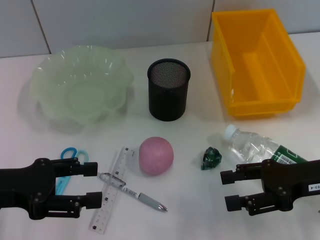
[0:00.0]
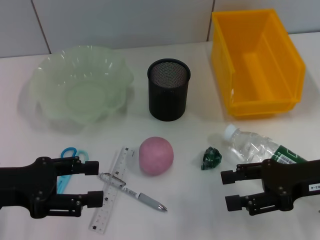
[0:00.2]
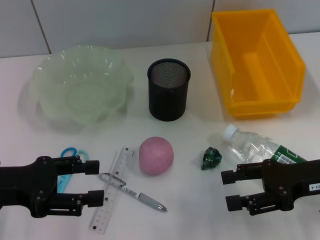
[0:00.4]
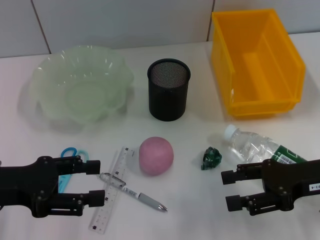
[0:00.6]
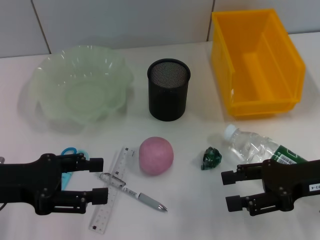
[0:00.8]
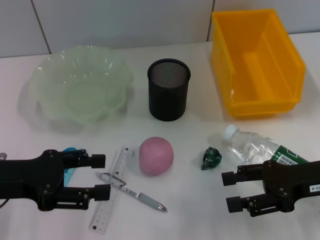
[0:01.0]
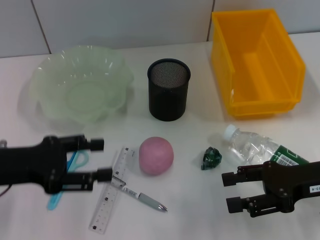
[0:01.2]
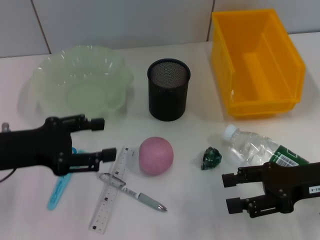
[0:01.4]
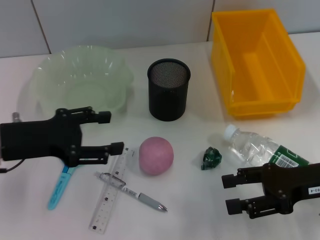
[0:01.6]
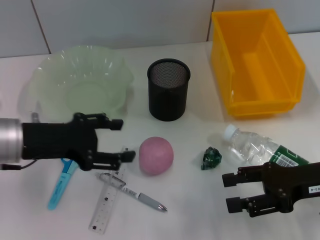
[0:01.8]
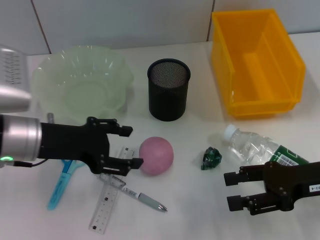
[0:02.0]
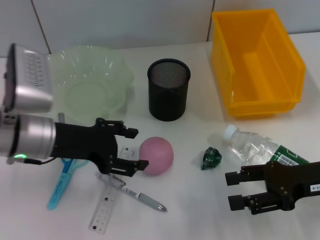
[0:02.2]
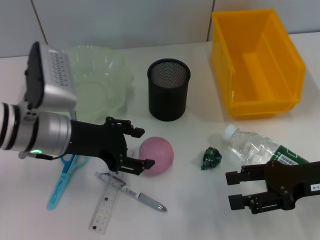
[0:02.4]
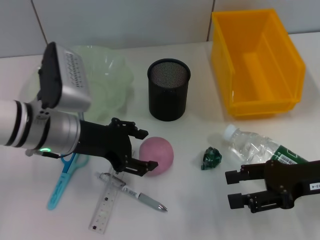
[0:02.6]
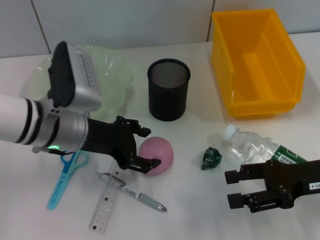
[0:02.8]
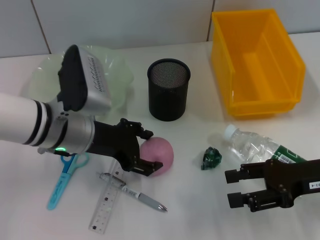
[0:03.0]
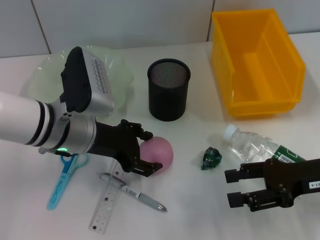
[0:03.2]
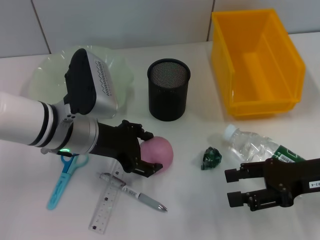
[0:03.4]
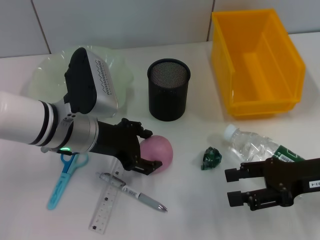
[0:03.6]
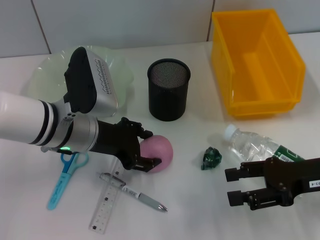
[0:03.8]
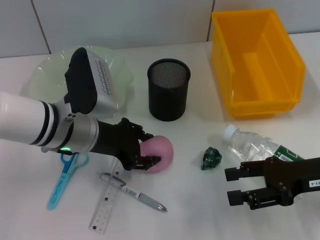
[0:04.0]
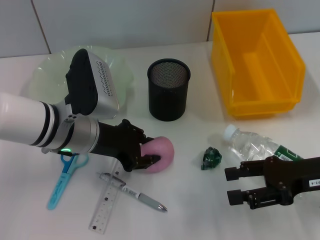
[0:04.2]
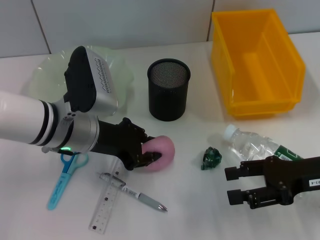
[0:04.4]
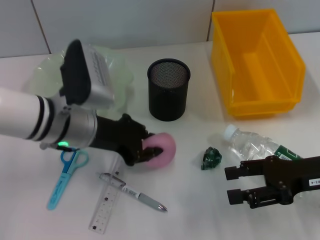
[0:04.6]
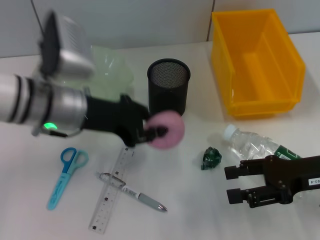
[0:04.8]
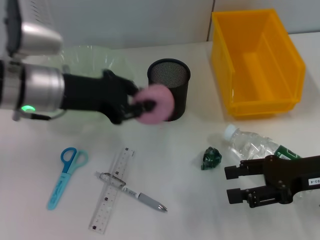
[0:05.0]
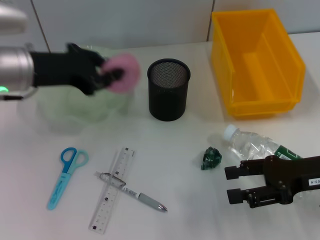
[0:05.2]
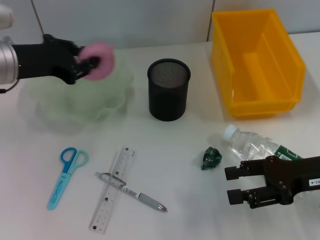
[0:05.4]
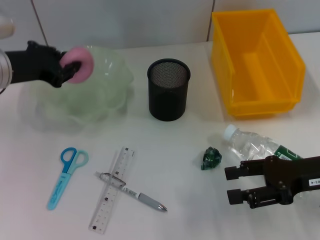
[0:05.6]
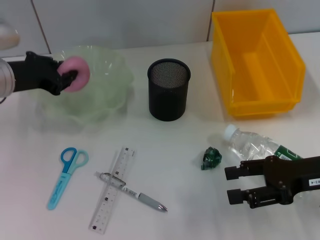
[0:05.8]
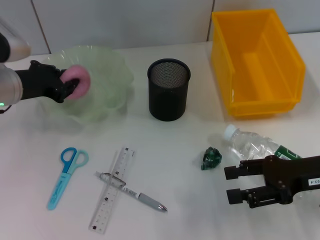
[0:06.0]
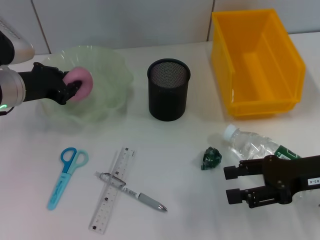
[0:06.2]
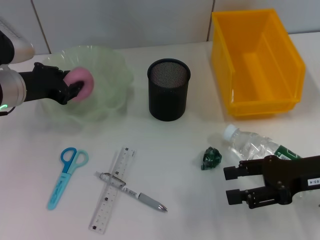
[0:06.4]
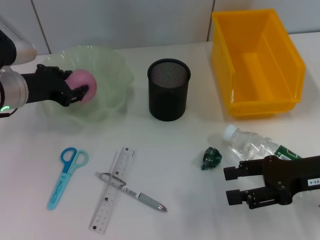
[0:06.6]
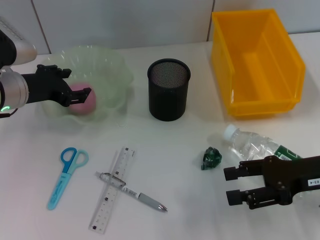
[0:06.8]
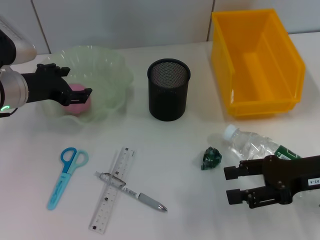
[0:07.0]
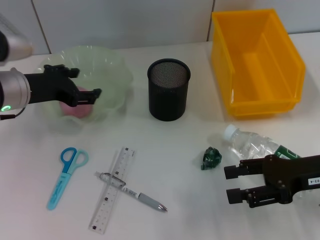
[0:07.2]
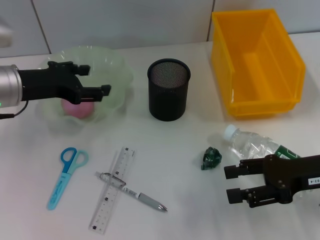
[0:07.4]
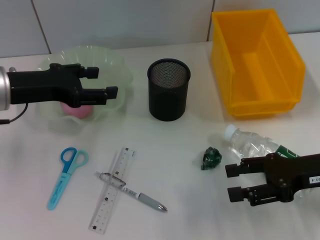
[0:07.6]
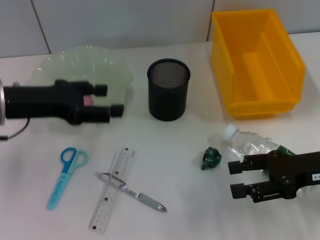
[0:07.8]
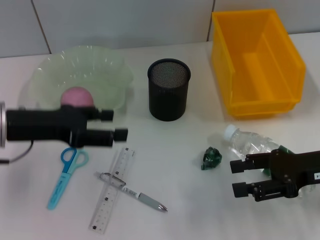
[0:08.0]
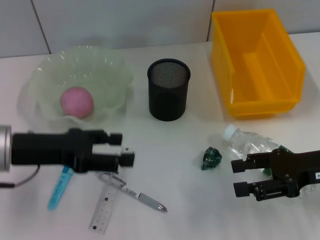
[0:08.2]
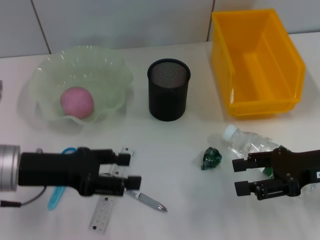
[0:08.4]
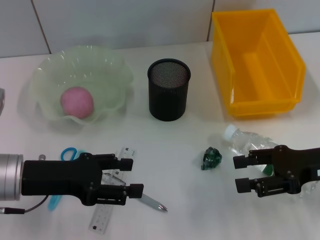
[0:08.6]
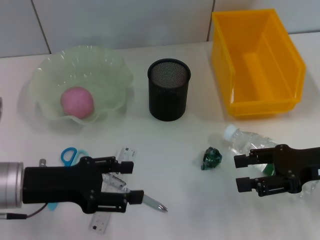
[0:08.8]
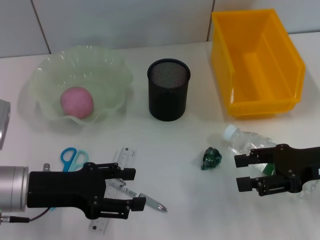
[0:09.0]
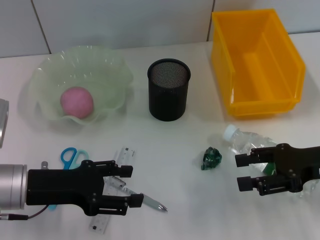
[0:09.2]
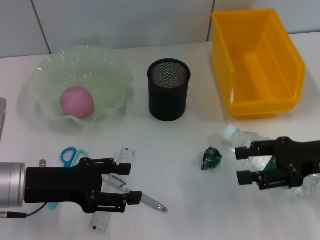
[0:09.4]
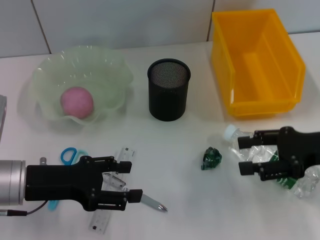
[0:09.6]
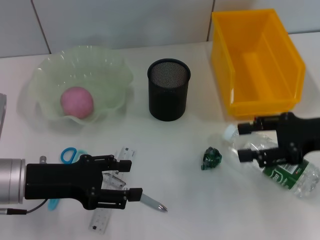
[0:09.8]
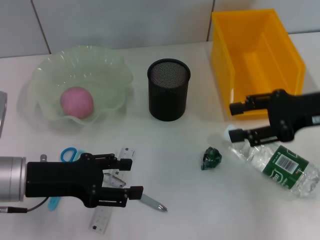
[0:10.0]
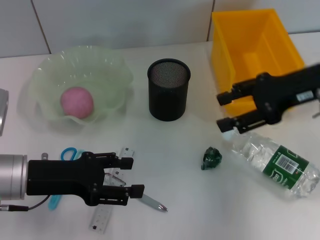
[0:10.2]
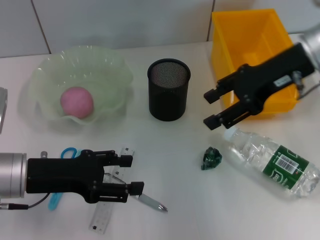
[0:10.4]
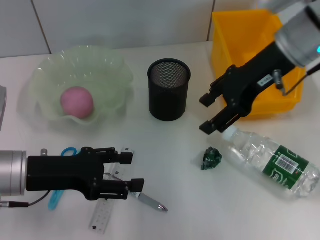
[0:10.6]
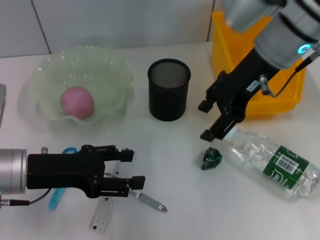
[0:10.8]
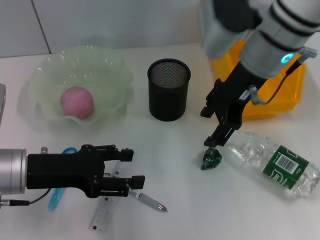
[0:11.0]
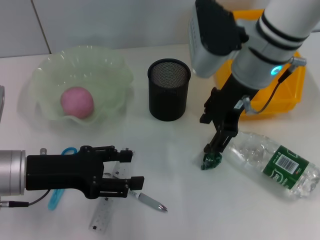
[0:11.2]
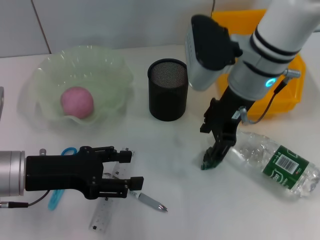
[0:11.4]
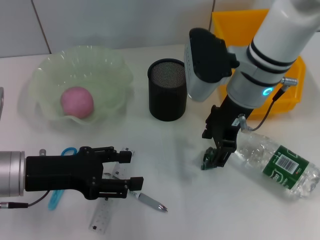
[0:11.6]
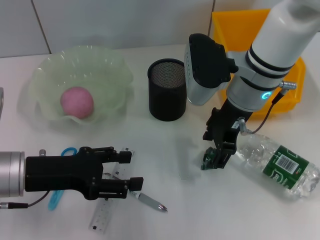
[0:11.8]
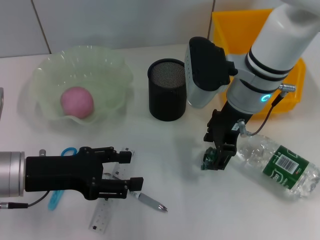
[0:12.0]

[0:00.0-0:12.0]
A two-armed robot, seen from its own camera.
Step, 0:00.0 to 0:04.4: Grab the peach with the left hand.
Step, 0:04.6 to 0:06.6: Place the peach into the fruit bowl with the left hand.
0:00.0 to 0:01.6: The left gripper changes place by some 5 cm.
0:01.6 to 0:03.0: The left gripper travels to the right by some 10 cm.
0:03.0 to 0:04.4: The left gripper closes its fingers.
0:04.4 to 0:06.0: The left gripper travels to the left and forward by about 10 cm.
0:06.0 to 0:07.6: The left gripper changes place by approximately 5 cm, and opens its fingers.
0:07.6 to 0:09.0: The left gripper heads backward and downward, covering some 10 cm.
0:09.0 to 0:10.4: The right gripper is displaced upward, forward and to the left by approximately 20 cm.
0:10.4 to 0:12.0: The right gripper heads to the left and downward, covering roughly 10 cm.

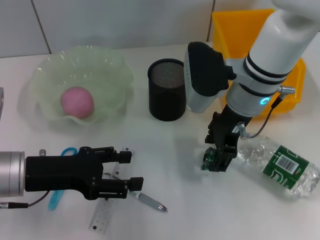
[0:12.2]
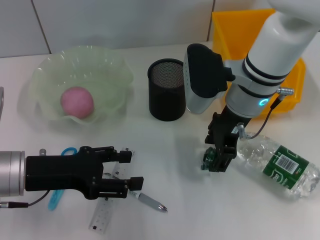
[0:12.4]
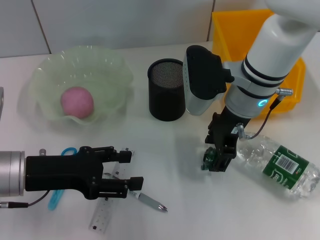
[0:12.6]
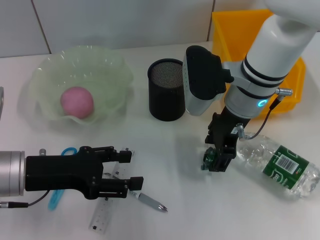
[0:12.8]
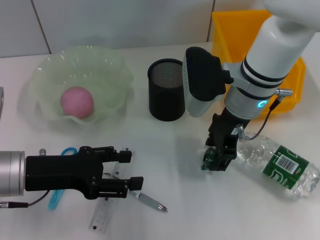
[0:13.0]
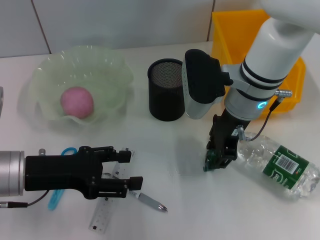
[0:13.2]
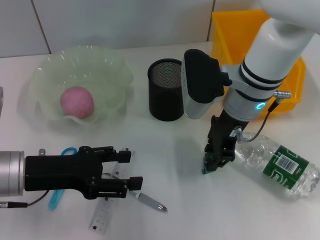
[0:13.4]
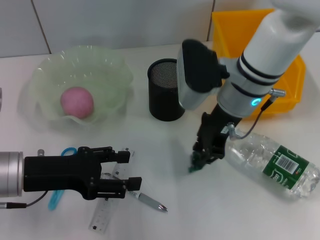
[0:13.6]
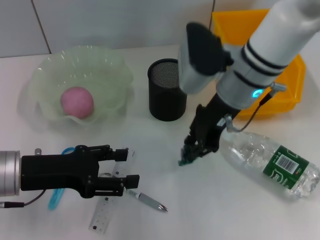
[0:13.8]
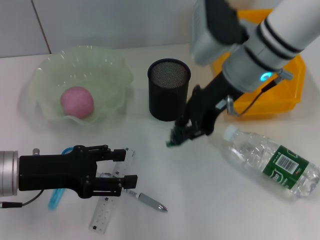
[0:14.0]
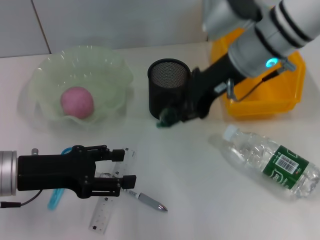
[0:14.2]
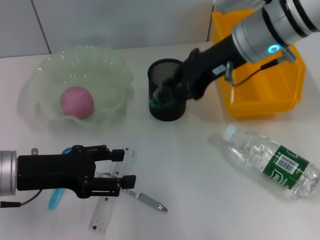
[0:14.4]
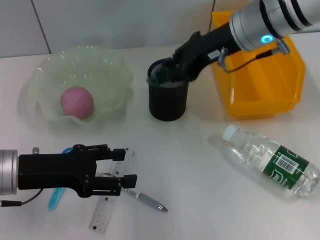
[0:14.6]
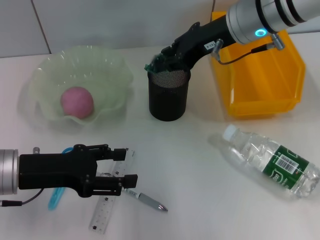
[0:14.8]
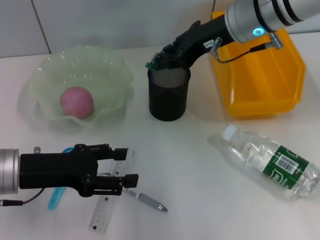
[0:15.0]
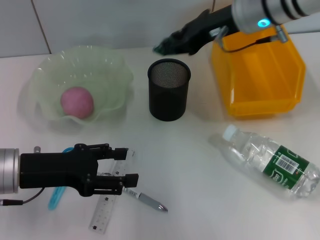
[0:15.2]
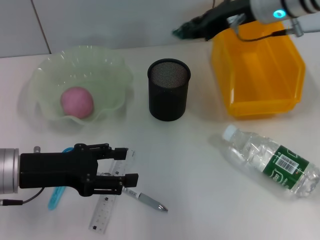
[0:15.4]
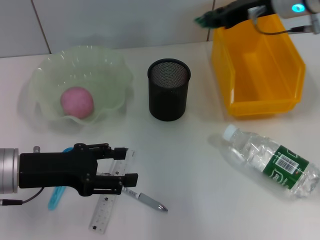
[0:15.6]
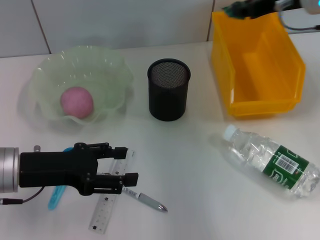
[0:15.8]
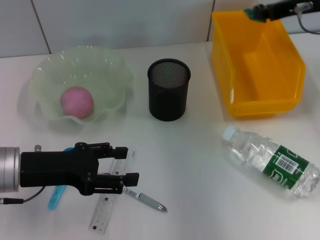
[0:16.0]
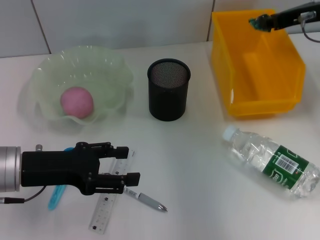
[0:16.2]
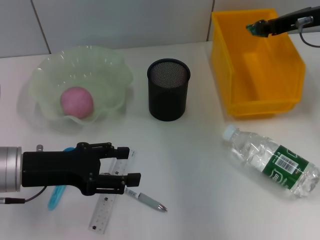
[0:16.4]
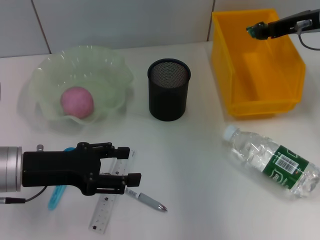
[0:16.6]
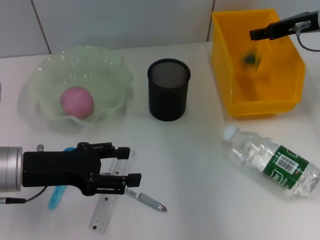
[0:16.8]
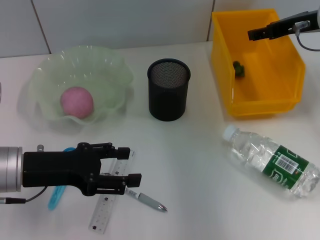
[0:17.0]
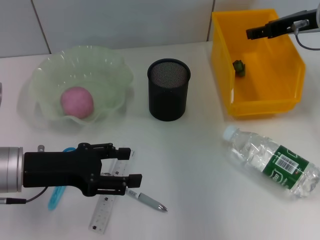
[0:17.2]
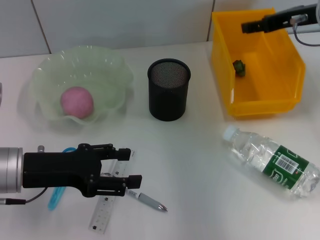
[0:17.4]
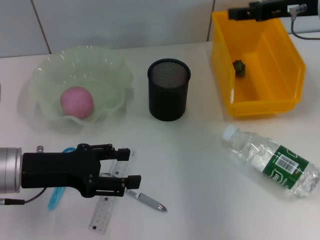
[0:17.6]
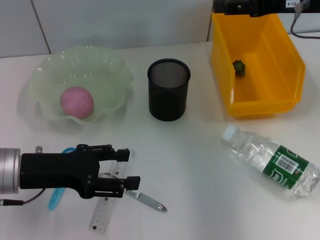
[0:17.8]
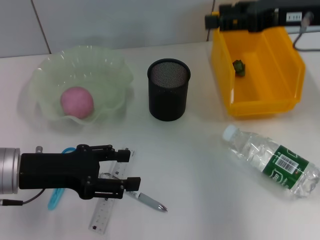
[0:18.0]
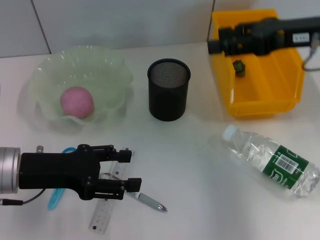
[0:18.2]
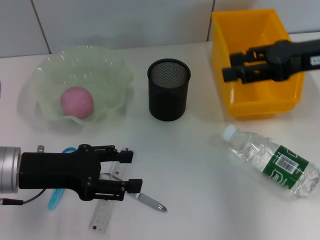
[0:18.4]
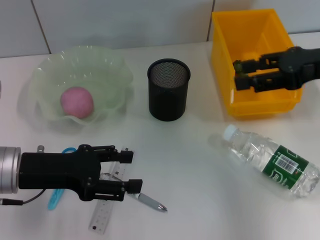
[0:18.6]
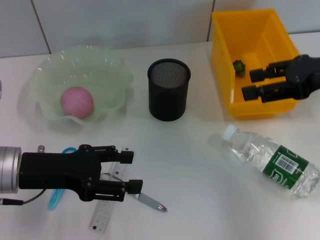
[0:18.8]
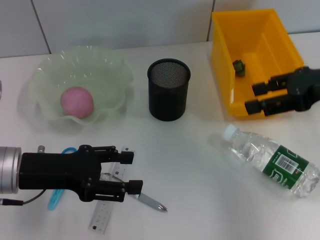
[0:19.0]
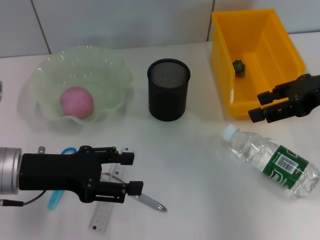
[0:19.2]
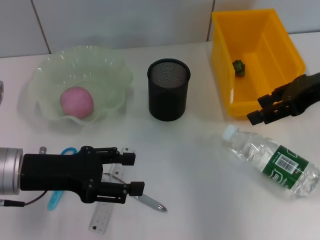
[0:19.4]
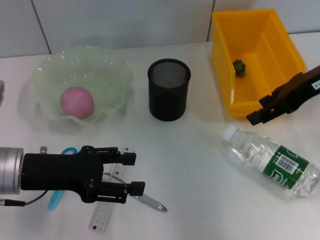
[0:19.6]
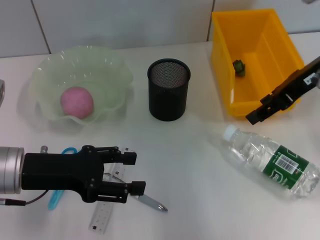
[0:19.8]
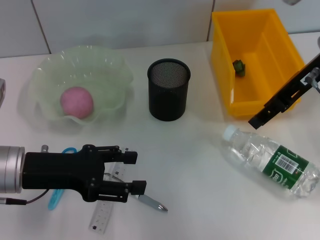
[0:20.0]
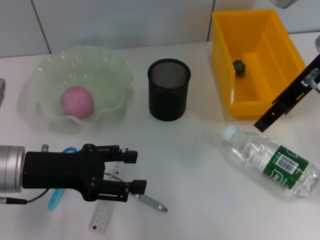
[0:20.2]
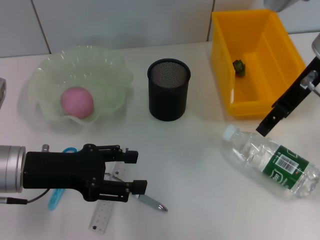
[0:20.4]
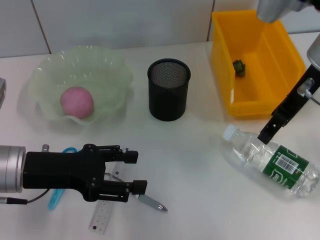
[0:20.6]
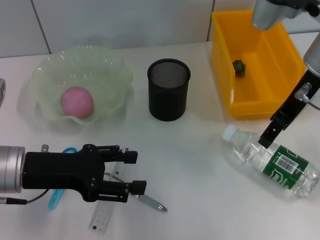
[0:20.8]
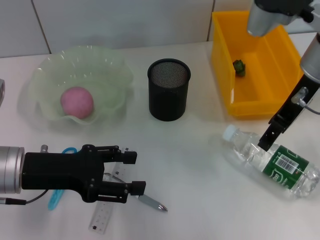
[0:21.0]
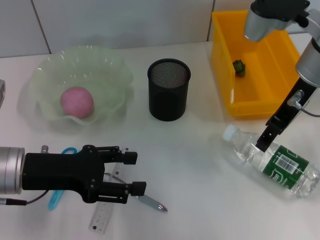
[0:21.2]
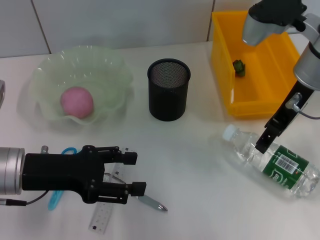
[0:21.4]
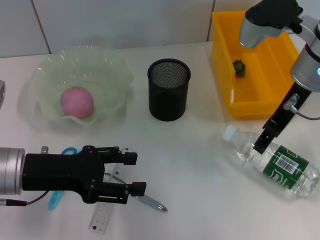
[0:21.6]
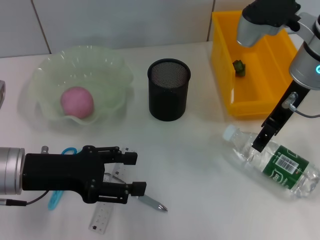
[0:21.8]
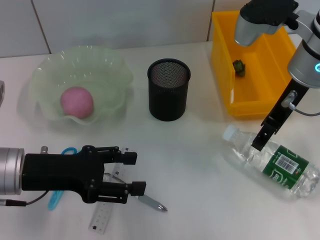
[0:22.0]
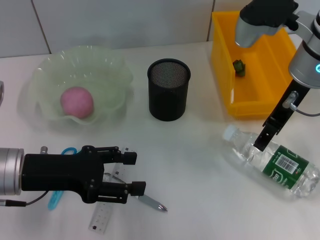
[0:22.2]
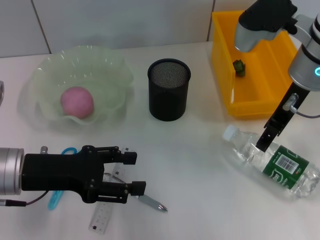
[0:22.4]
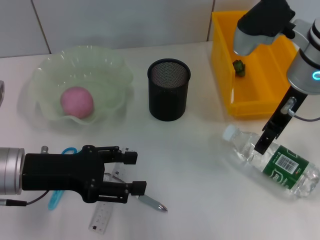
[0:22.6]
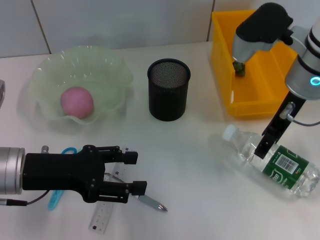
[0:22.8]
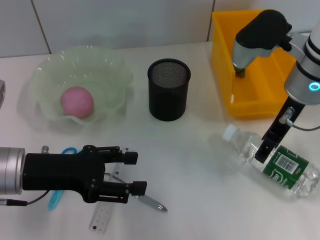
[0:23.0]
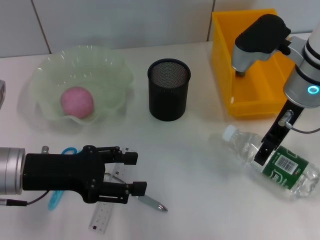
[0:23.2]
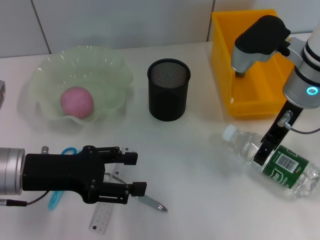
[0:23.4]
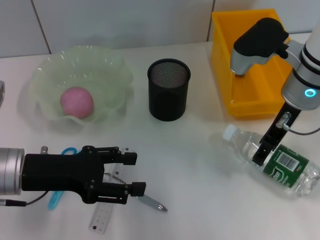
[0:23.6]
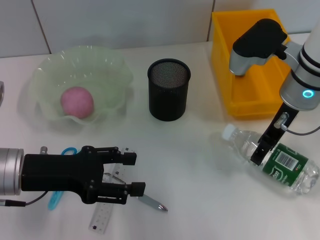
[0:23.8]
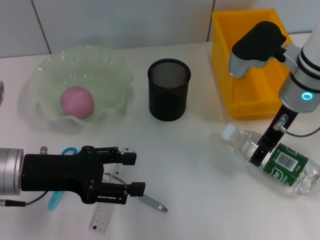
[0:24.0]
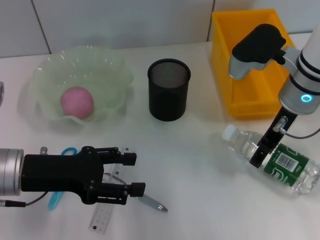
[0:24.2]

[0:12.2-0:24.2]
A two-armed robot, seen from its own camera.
Step, 0:13.2 to 0:16.8: Place the plastic into the trash can with the right hand.
0:12.2 to 0:13.8: The right gripper closes up.
0:13.8 to 0:15.2: The right gripper goes some 5 cm forward.
0:15.2 to 0:16.6: The right gripper is displaced to the right by some 10 cm.
0:16.6 to 0:18.2: The right gripper goes approximately 5 cm backward, and opens.
0:21.2 to 0:24.2: There are only small adjustments of the grippers.
